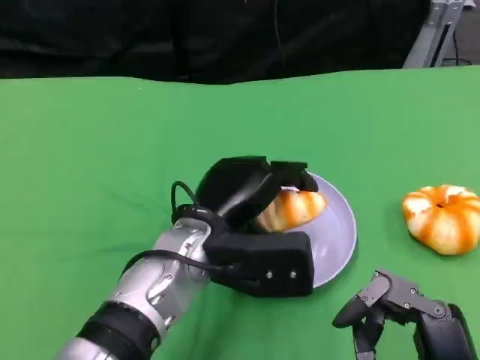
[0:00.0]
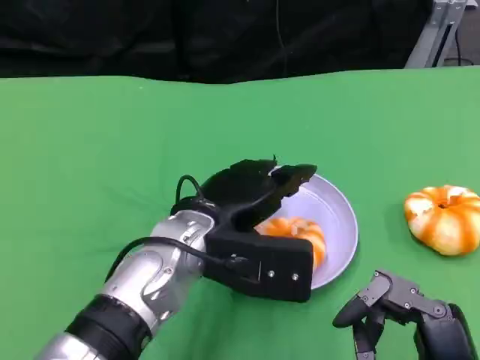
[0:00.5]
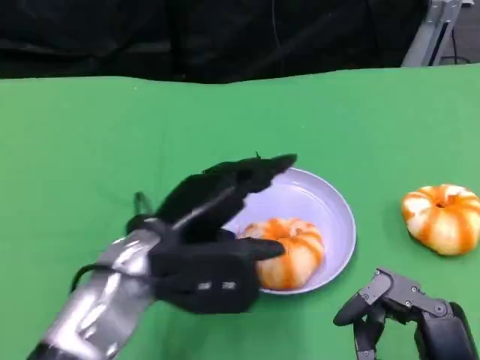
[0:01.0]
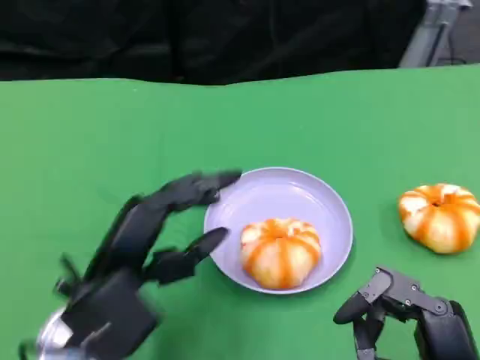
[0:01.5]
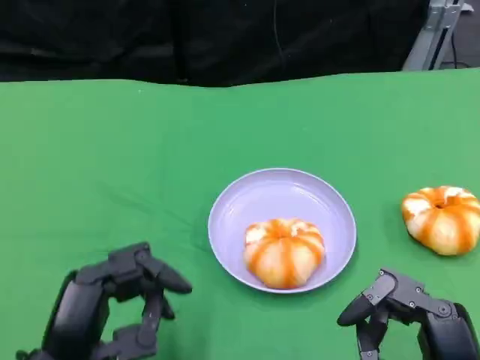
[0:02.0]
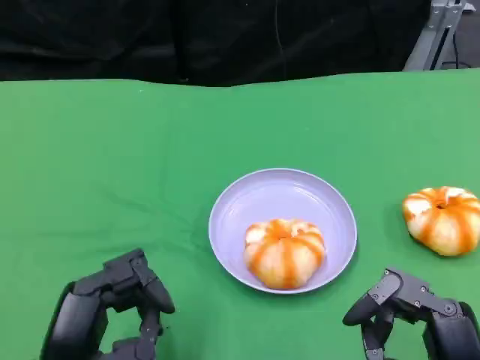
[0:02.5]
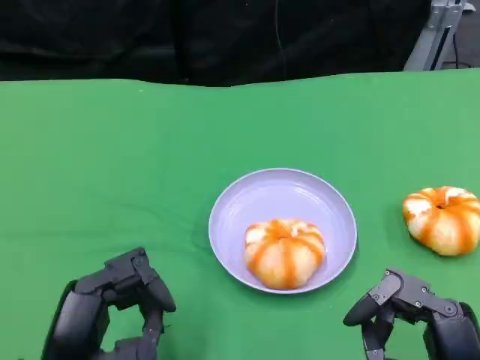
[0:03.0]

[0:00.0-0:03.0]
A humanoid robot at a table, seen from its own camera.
Task of the whole recording: Grasp the bread from the table and place it into the plate.
0:00.0 to 0:01.5: The left hand is displaced to the left and backward by roughly 15 cm.
0:01.5 to 0:03.0: The left hand travels backward by approximately 5 cm.

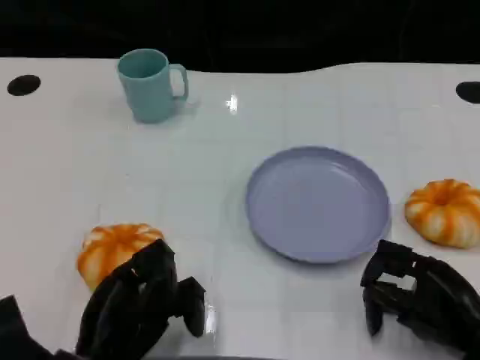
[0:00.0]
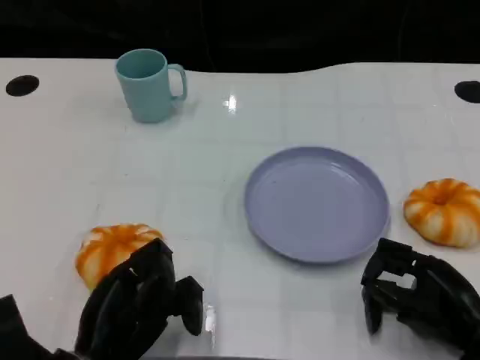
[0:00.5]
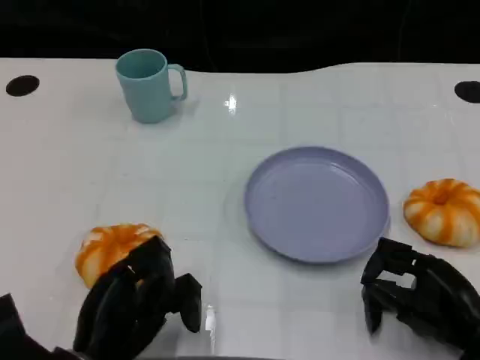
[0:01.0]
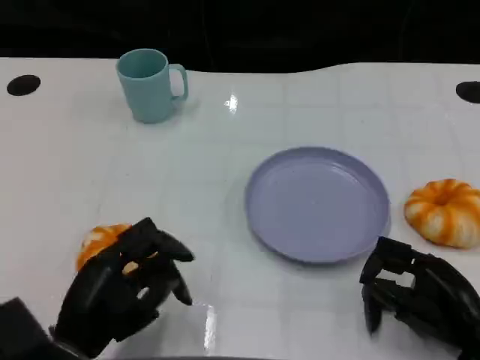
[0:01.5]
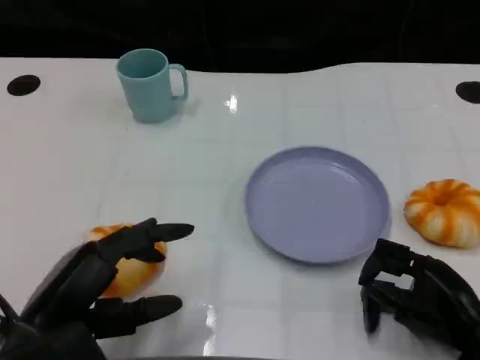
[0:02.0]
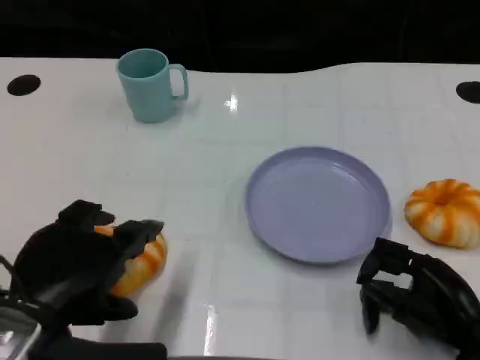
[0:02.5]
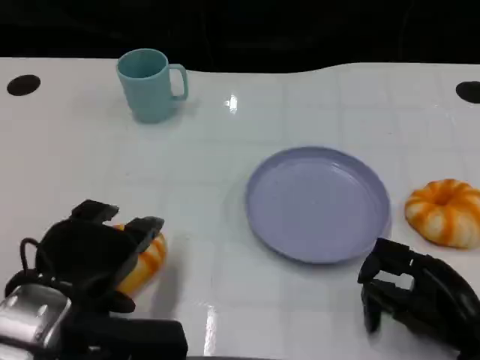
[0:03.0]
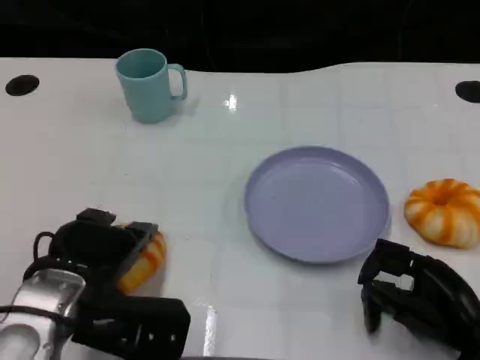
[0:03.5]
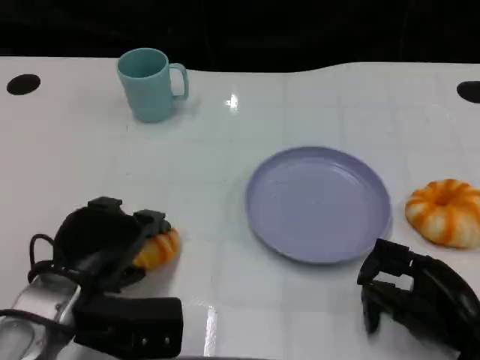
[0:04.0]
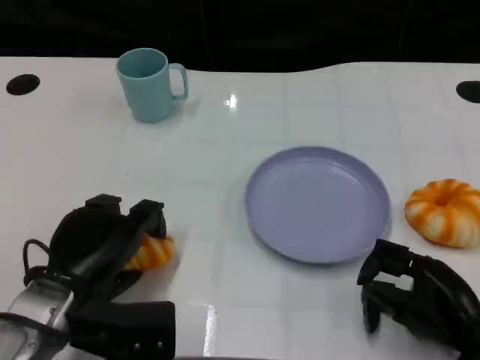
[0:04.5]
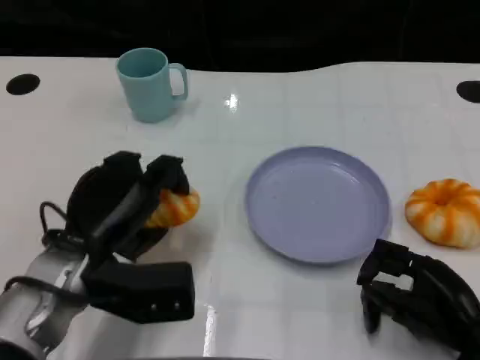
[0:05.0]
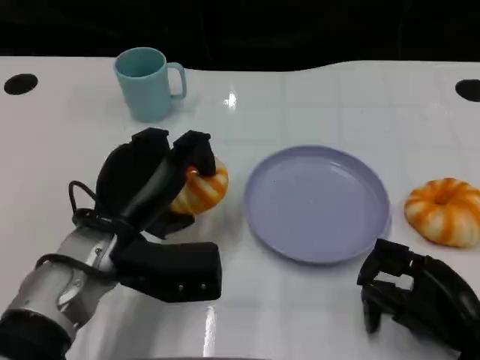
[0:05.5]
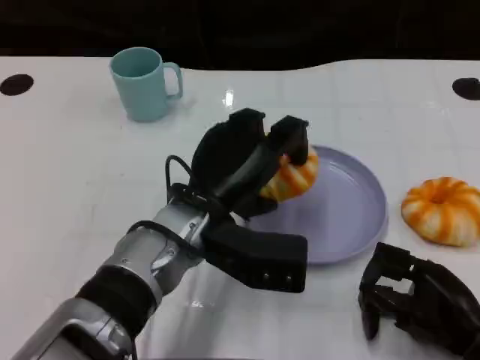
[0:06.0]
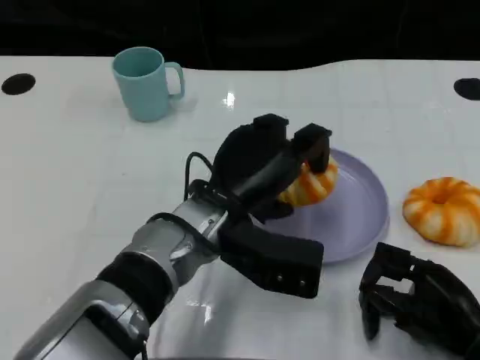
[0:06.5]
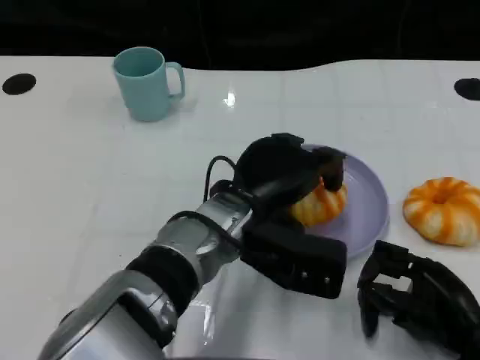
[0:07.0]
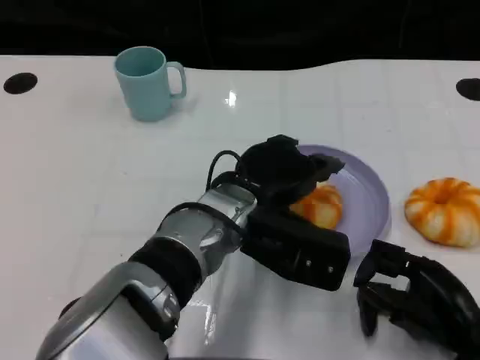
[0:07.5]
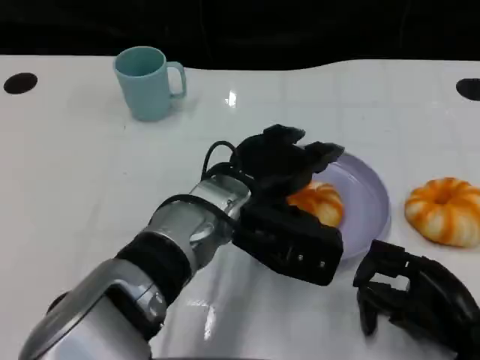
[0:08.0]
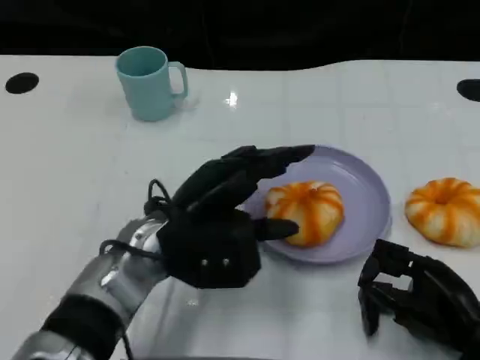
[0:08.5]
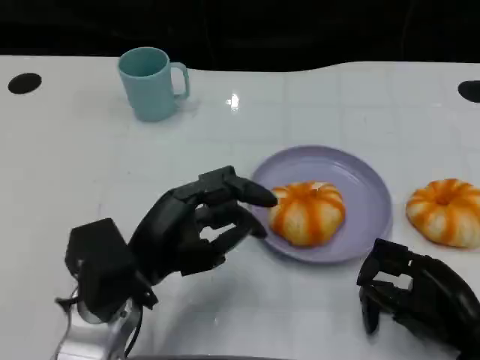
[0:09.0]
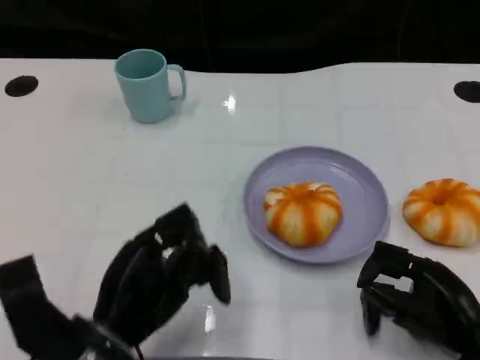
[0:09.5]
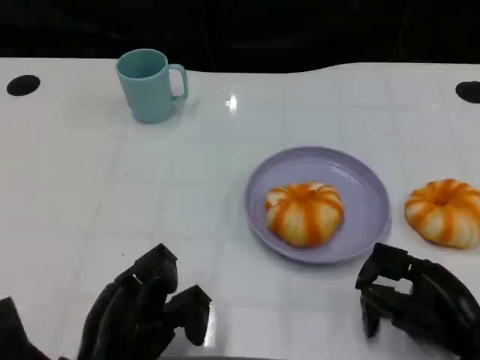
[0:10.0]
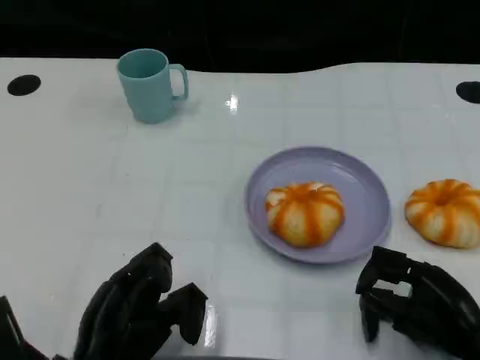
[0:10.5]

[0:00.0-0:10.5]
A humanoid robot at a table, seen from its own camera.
Task of the whole recording: Grasp the bread from the table and place it into the plate.
0:00.0 to 0:02.0: The left hand is displaced upward by some 5 cm.
0:02.0 to 0:04.0: The left hand heads forward, covering some 5 cm.
0:04.0 to 0:06.5: The left hand goes roughly 15 cm to the right.
0:06.5 to 0:08.5: The left hand moves to the left, some 5 cm.
0:08.5 to 0:10.5: The left hand shifts approximately 15 cm backward, to the left and downward.

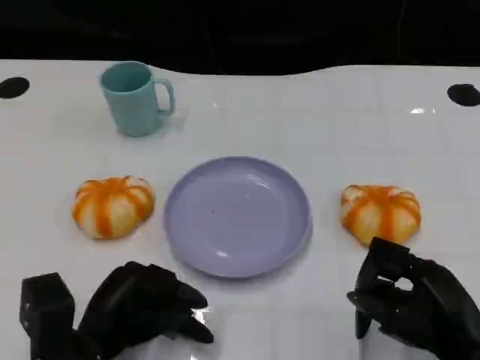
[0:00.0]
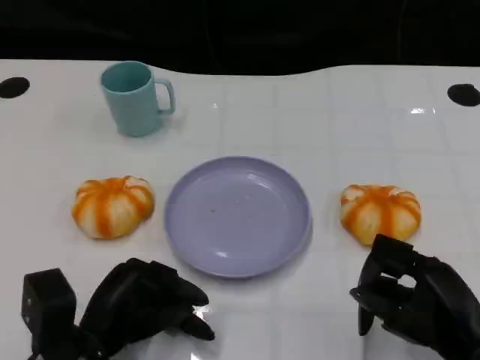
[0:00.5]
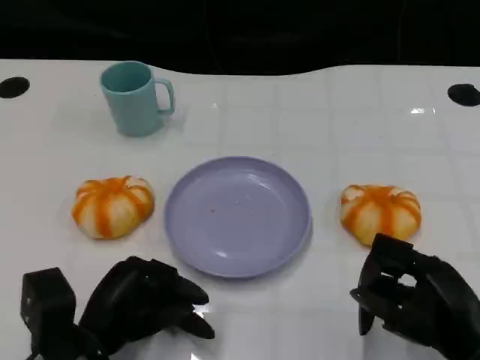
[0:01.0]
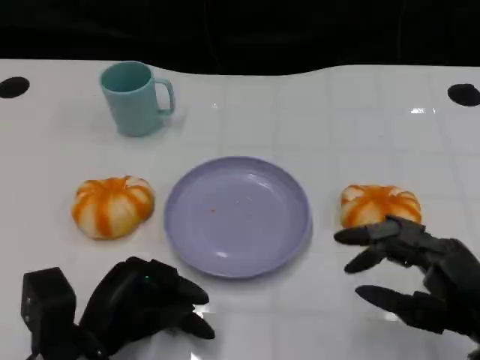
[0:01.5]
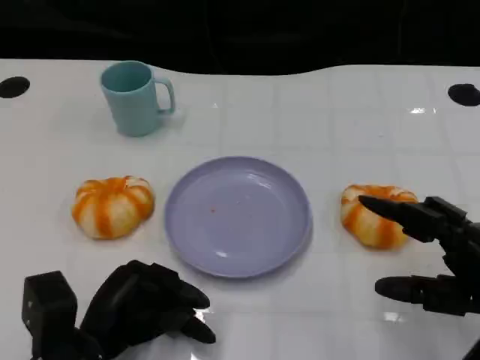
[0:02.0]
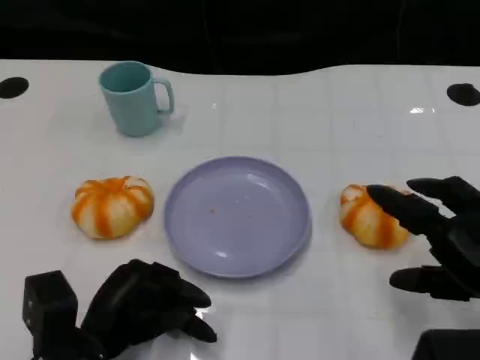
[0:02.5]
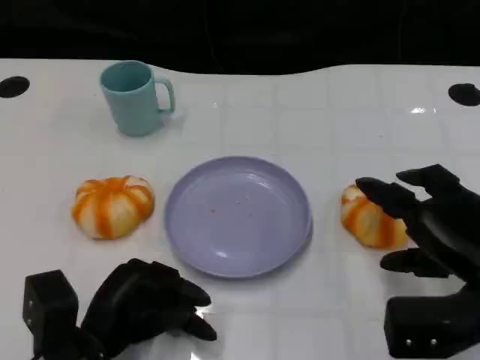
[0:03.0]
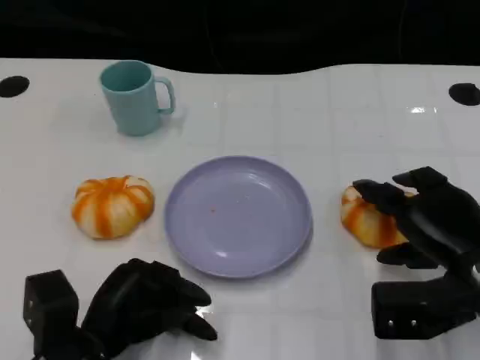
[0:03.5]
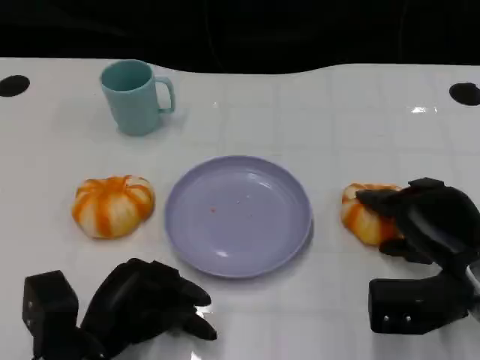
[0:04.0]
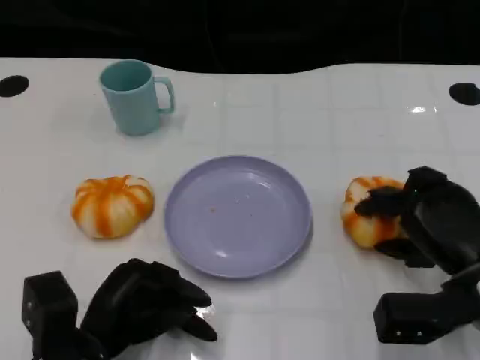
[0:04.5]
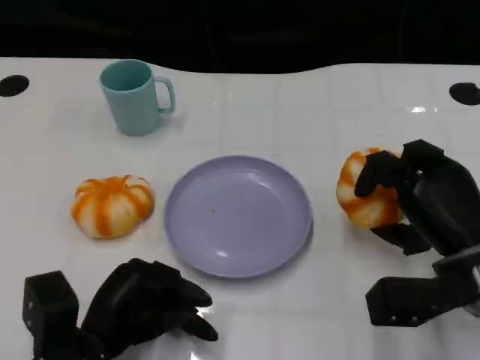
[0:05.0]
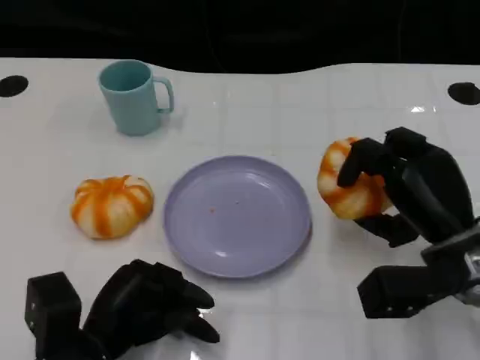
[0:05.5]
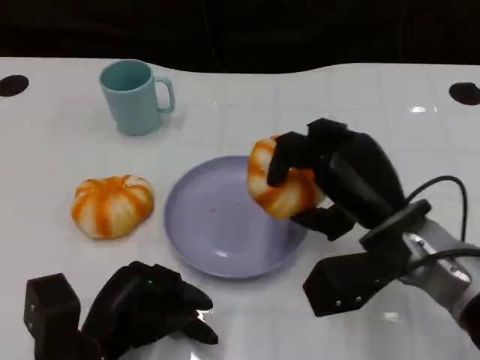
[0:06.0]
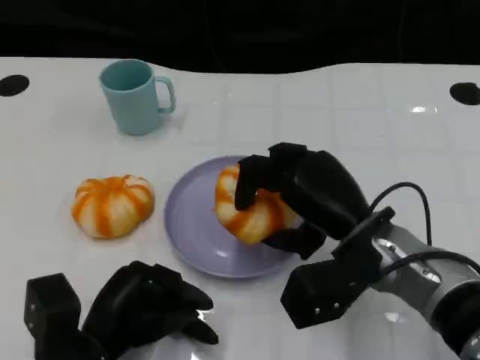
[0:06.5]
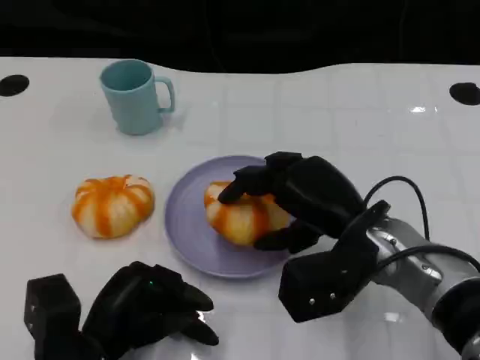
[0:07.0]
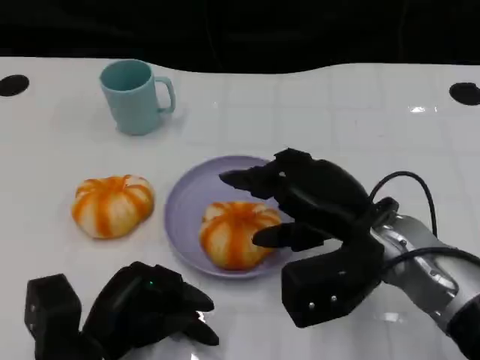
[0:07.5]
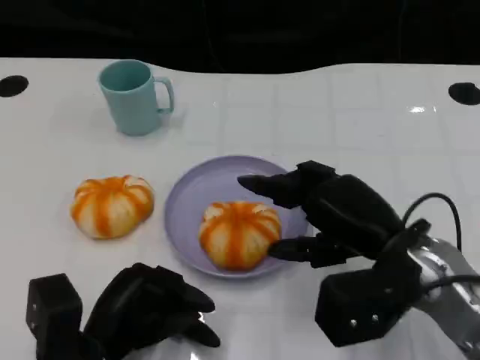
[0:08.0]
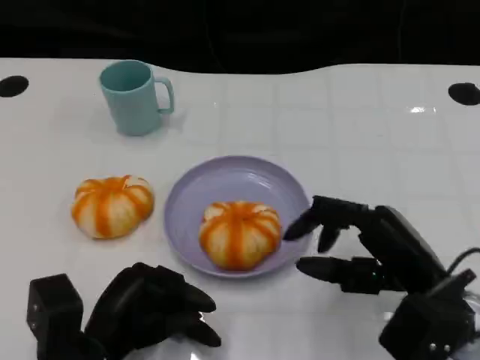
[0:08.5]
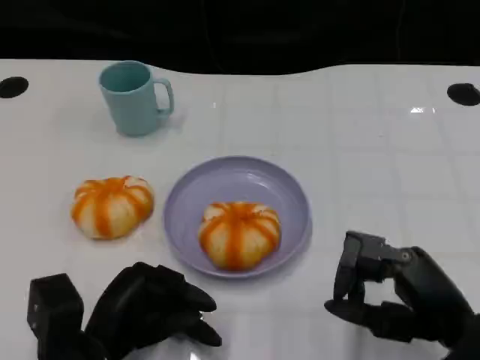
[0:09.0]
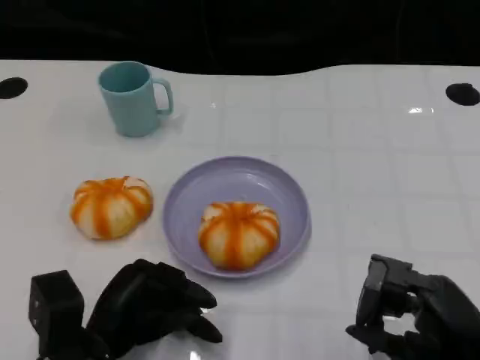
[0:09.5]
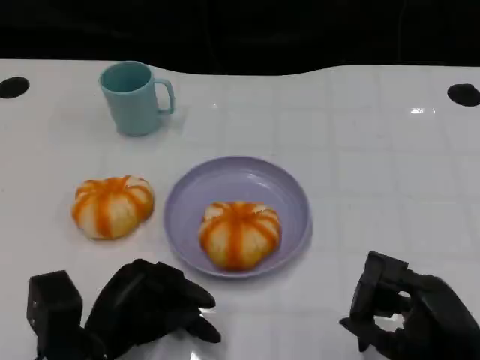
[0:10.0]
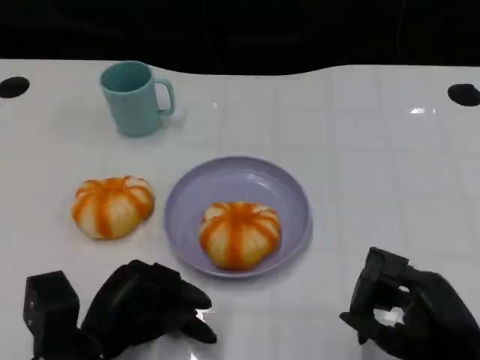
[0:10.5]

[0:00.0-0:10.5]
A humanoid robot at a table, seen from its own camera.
Task of the whole recording: Grasp the bread from the table and place it into the plate.
0:00.0 to 0:02.0: The right hand shifts by approximately 5 cm.
0:02.0 to 0:04.0: The right hand goes approximately 10 cm forward.
0:04.0 to 0:06.5: The right hand goes approximately 10 cm to the left.
0:06.5 to 0:08.5: The right hand heads to the right and backward, covering some 10 cm.
0:08.5 to 0:10.5: The right hand is displaced backward by about 5 cm.
